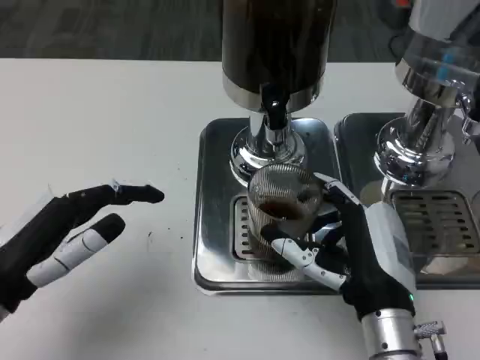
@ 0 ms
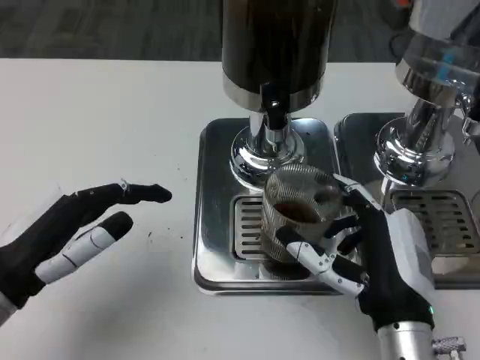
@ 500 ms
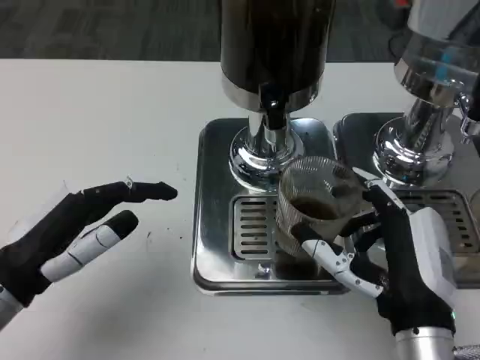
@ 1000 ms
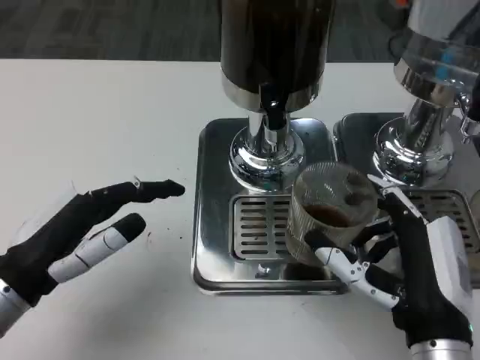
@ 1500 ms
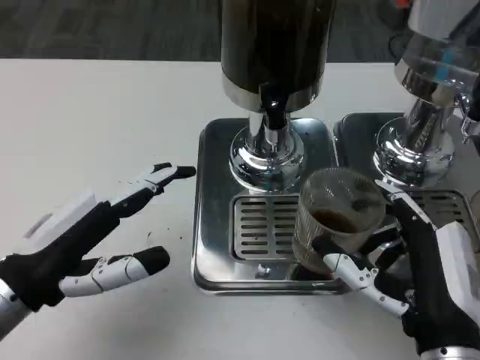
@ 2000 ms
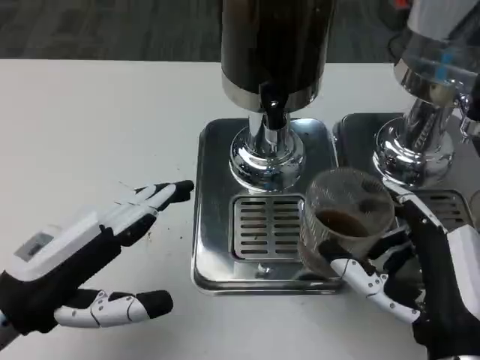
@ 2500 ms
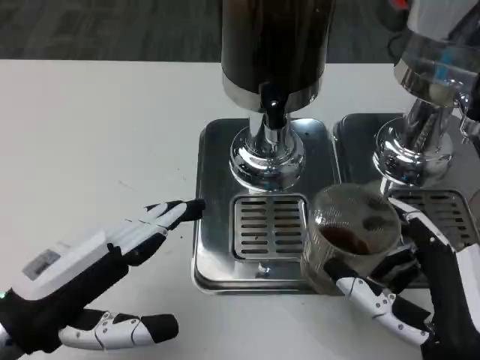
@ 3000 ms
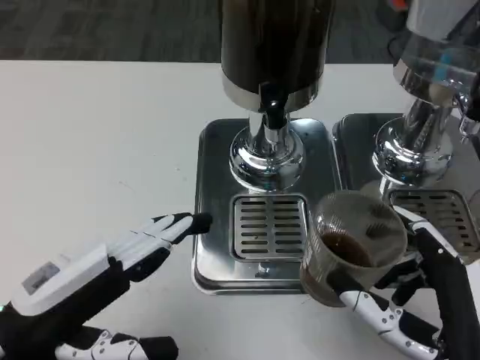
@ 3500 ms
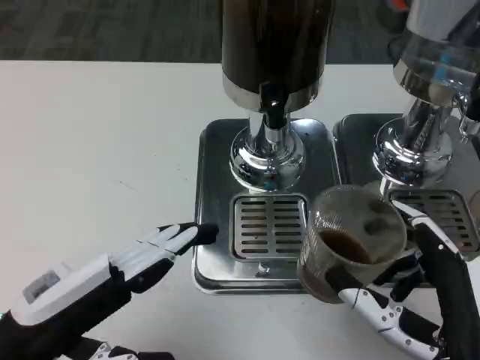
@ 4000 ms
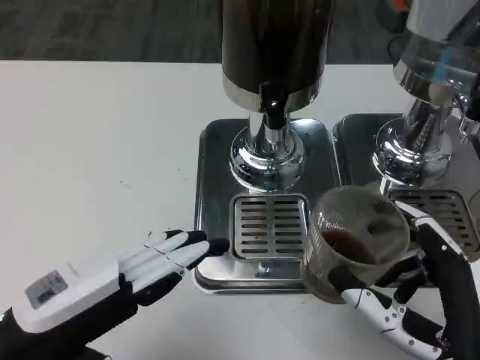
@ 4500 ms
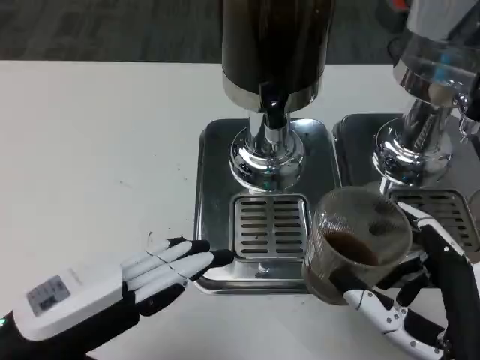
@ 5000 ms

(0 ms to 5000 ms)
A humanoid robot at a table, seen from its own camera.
Task of the whole recording: Grasp the cup under the faucet to collect the drink, then remove the cup.
0 ms - 2500 ms: The right hand moves backward, approximately 5 cm.

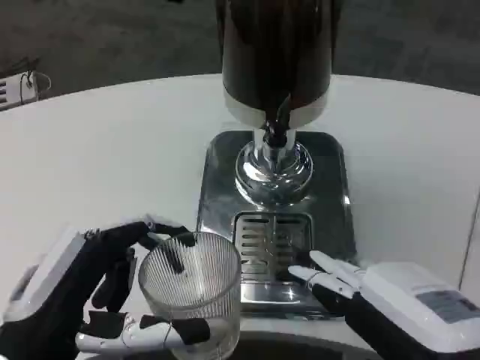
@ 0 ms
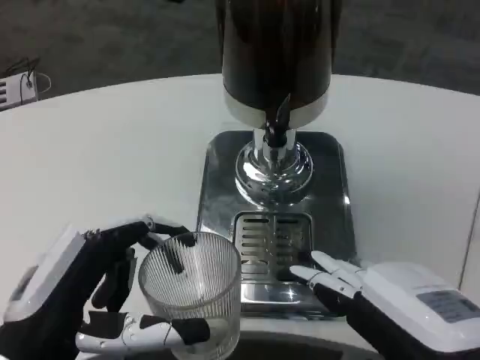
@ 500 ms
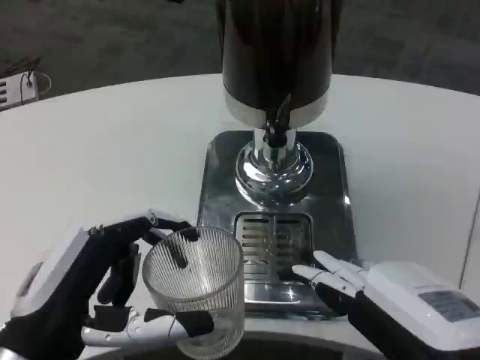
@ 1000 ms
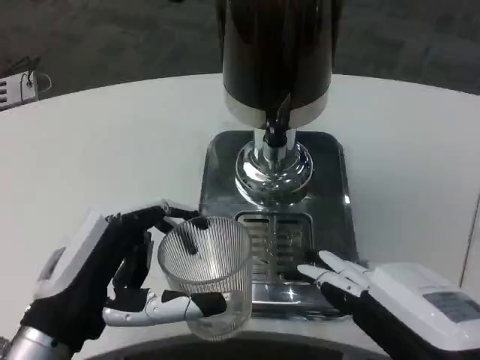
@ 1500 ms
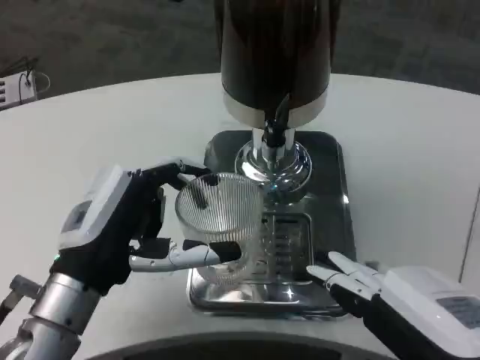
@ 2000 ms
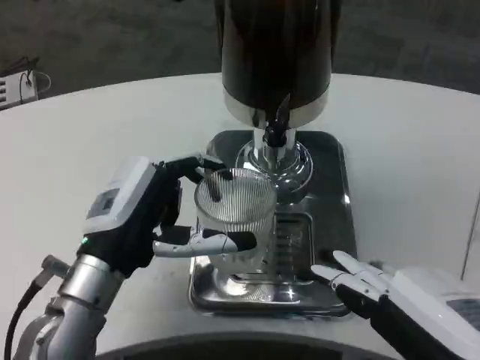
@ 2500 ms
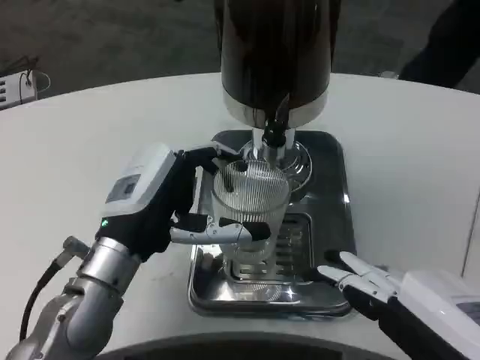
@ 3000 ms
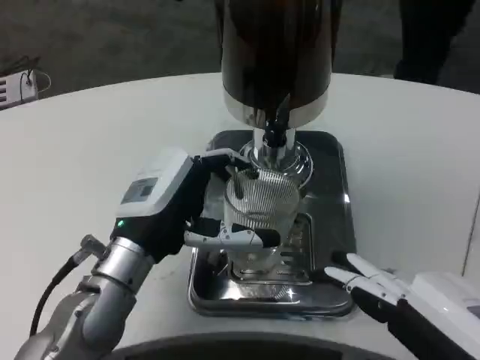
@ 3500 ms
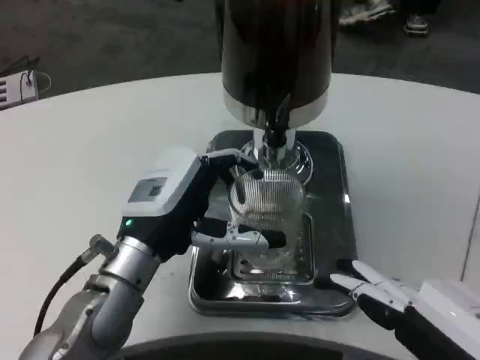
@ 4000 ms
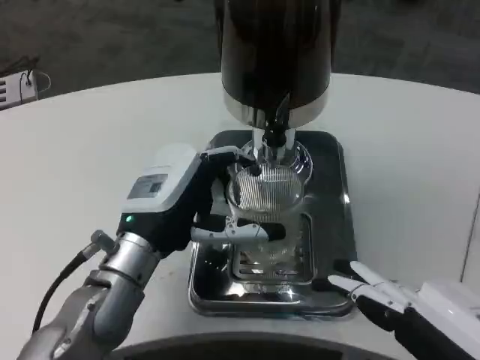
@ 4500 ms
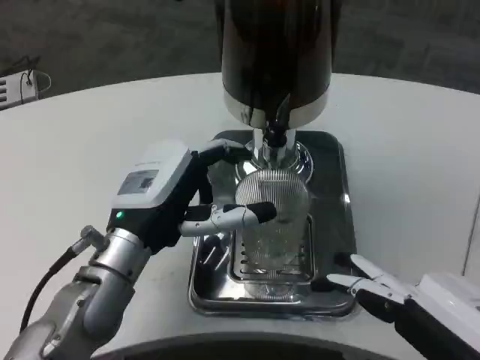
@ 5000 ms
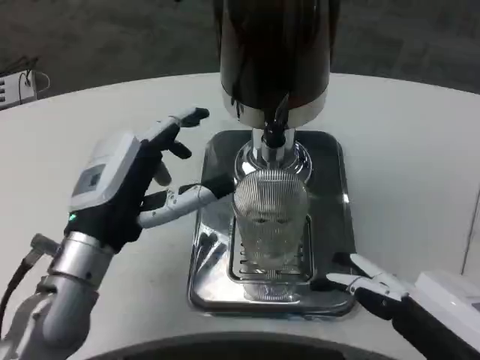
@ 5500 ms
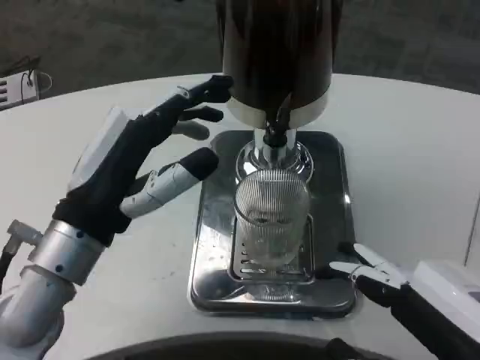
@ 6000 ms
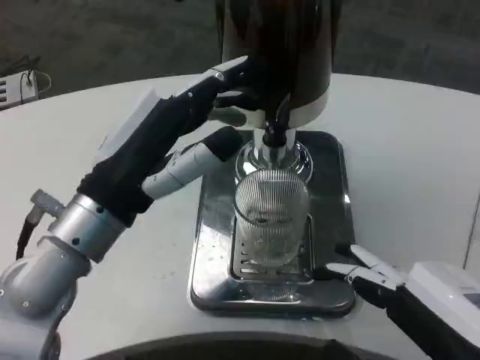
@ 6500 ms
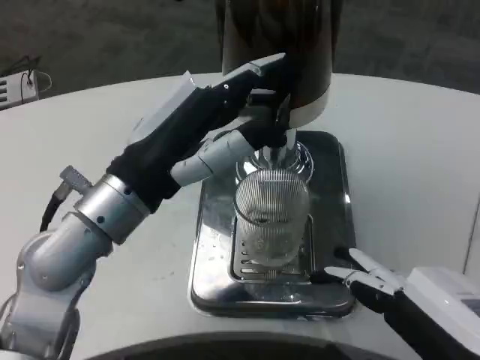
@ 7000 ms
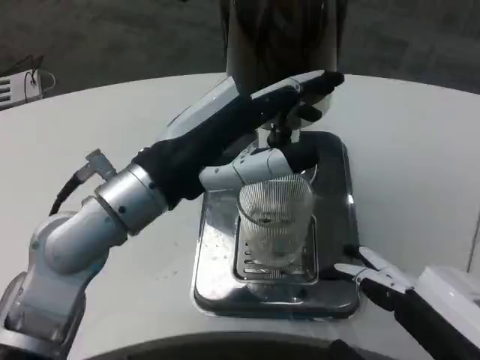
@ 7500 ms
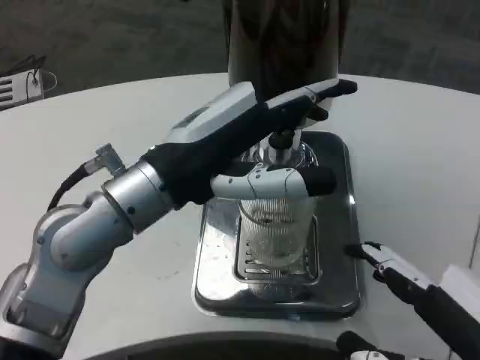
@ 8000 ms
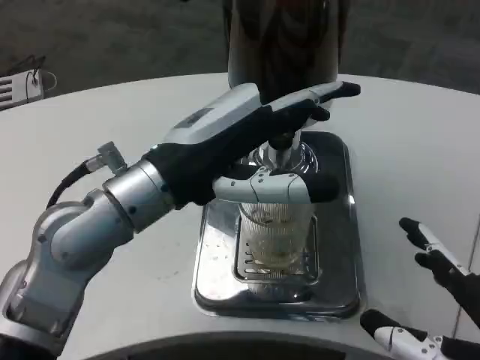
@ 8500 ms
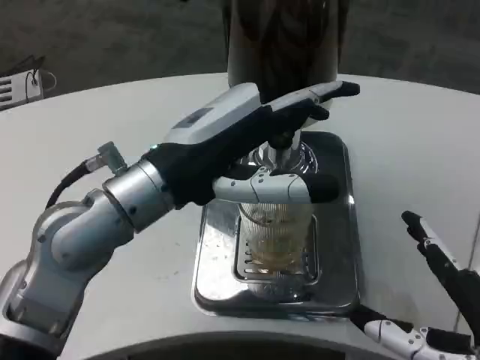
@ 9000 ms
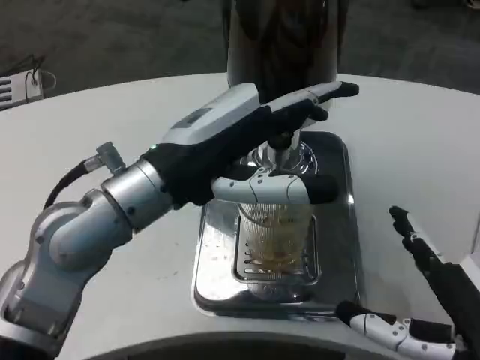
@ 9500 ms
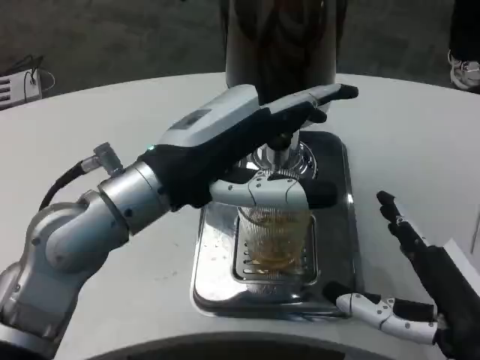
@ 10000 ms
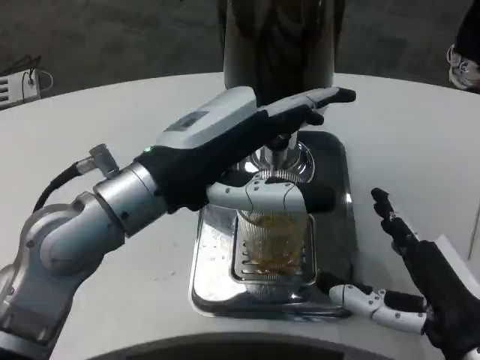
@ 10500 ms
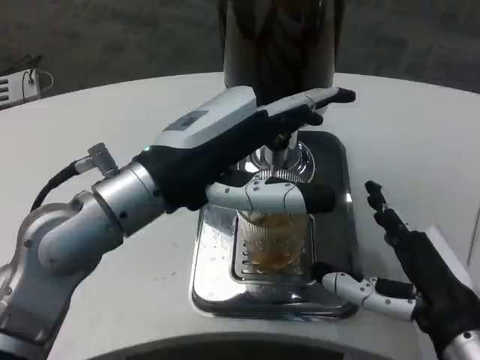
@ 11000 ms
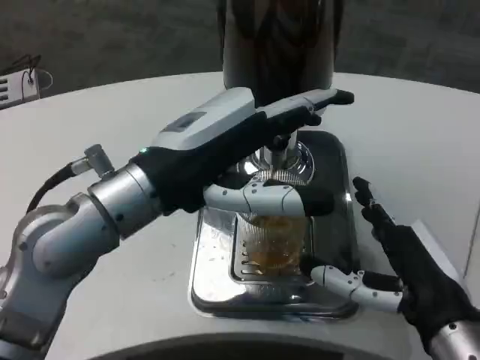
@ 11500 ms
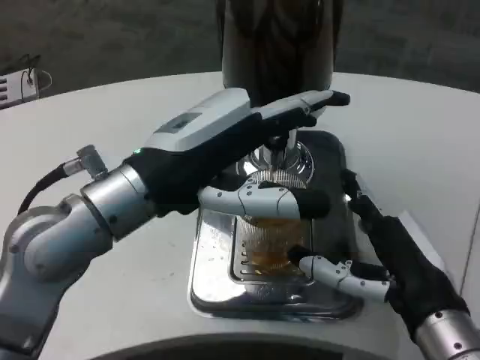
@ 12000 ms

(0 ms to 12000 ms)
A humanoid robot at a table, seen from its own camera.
Task of the whole recording: Grasp the cup under the faucet to collect the drink, then remove the cup.
0 ms - 2000 ms: The left hand moves forward, roughly 10 cm.
2000 ms - 4000 ms: The left hand heads forward, covering some 5 cm.
4000 ms - 6000 ms: The left hand changes place by some 5 cm.
6000 ms - 8000 ms: The left hand shifts about 5 cm upward.
8000 ms - 10000 ms: The right hand is displaced forward by about 5 cm.
10000 ms - 12000 ms: The right hand ends up approximately 5 cm from where it was.

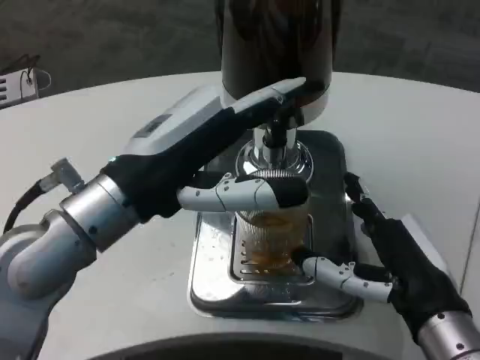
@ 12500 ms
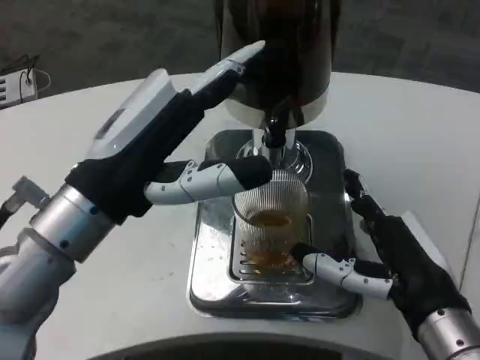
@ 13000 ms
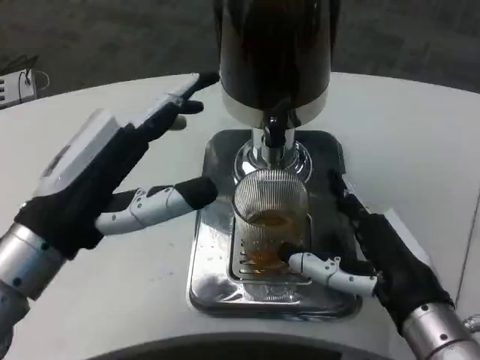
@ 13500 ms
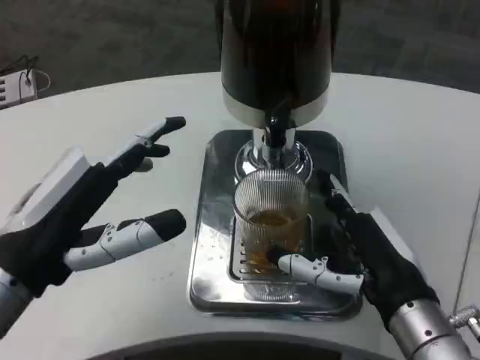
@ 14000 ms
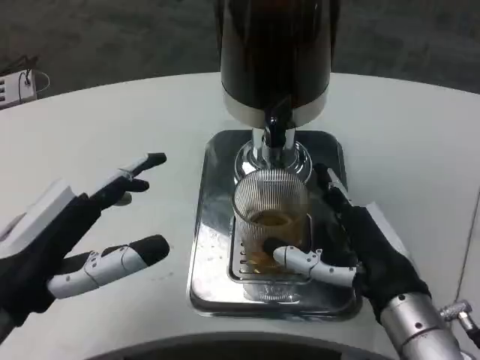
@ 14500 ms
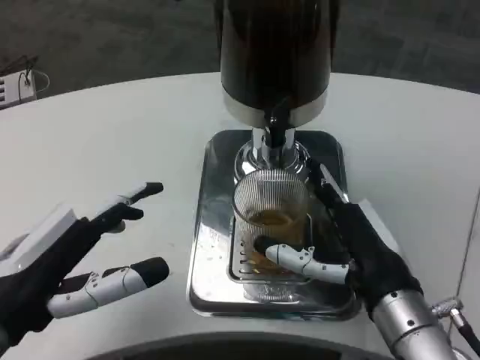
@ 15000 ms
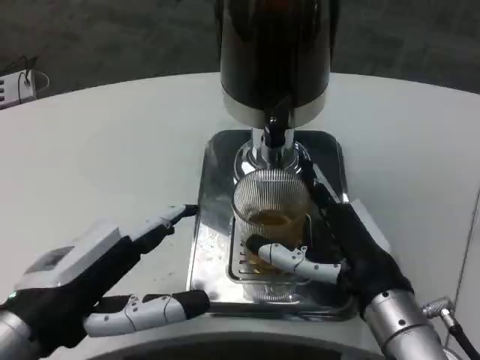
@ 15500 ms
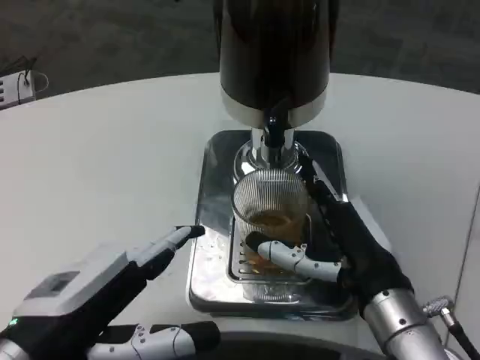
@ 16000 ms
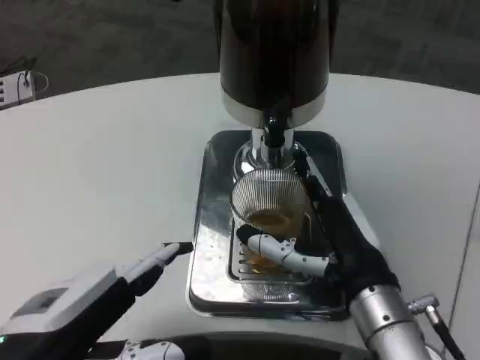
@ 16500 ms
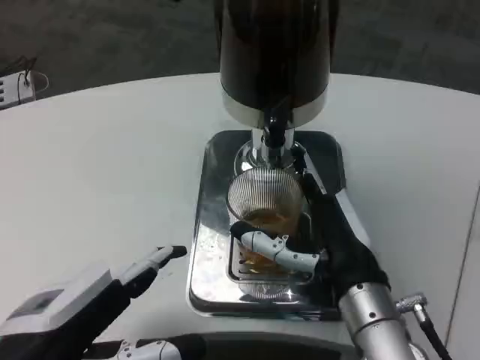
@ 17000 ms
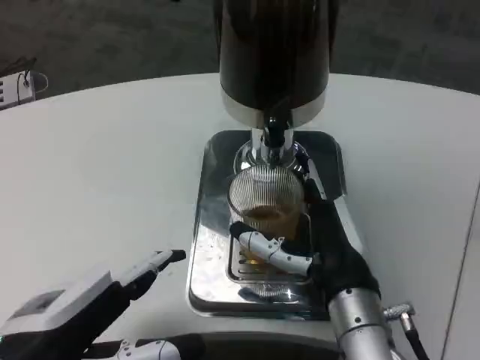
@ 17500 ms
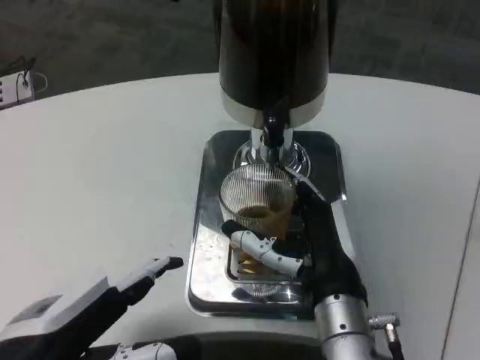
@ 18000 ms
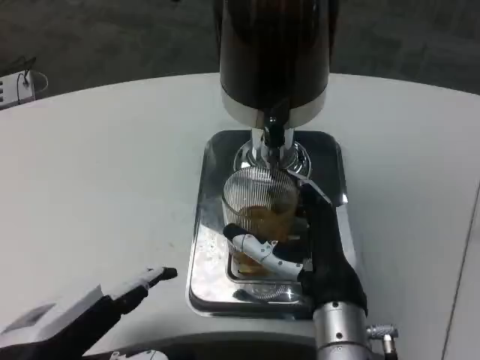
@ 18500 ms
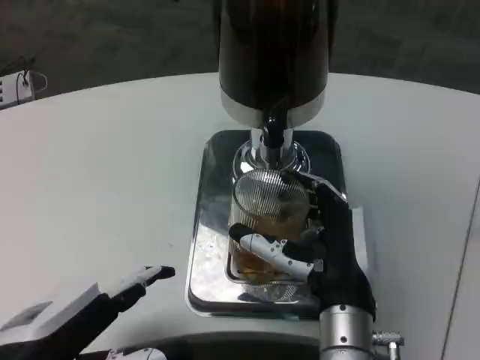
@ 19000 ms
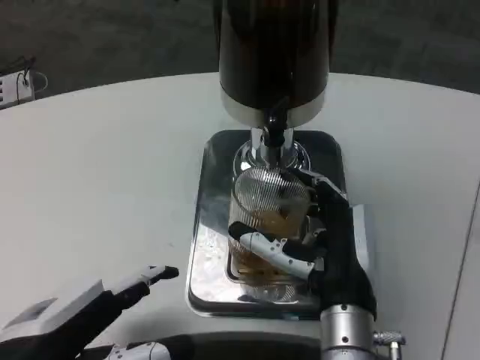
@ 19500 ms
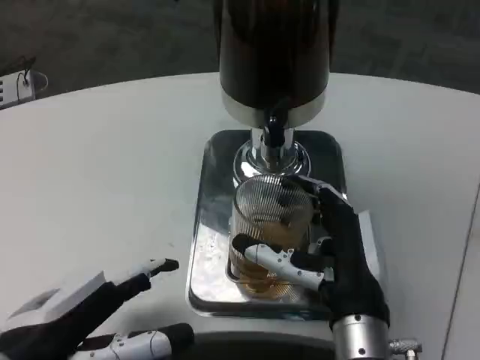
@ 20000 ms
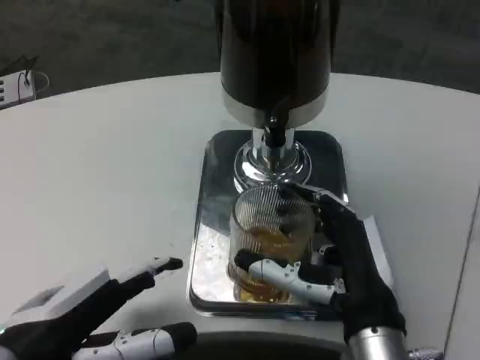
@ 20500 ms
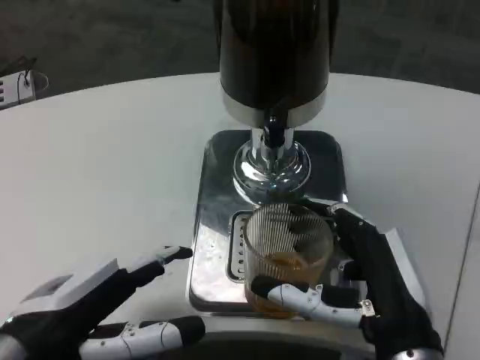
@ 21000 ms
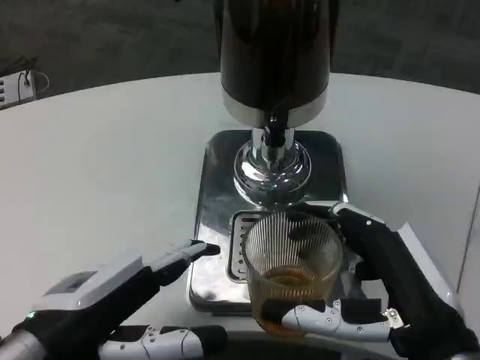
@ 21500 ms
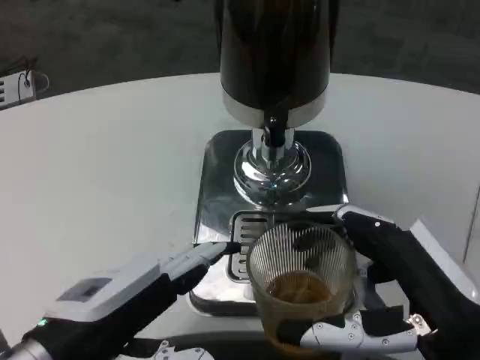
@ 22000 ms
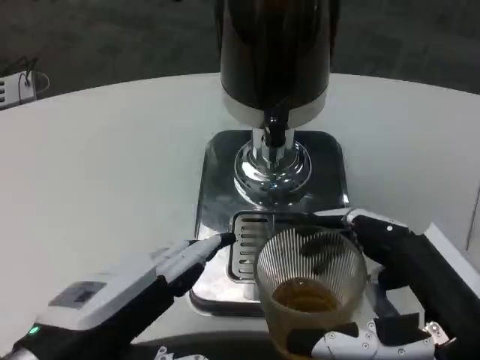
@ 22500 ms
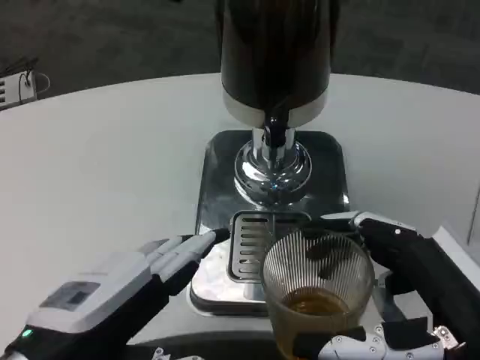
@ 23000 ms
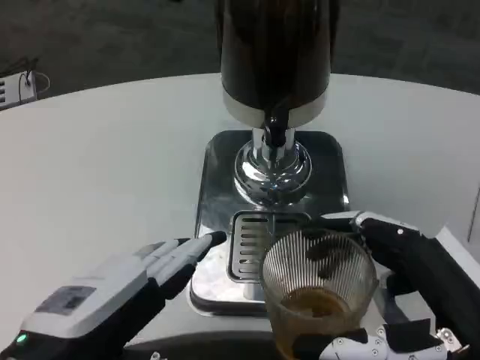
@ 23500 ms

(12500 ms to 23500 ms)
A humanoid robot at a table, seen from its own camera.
Task of the whole recording: Grasp the cup under the faucet to collect the drink, then remove the cup.
12500 ms - 14500 ms: The left hand is displaced to the left, downward and backward by about 10 cm.
16000 ms - 18000 ms: The right hand heads to the left, covering approximately 5 cm.
18000 ms - 20000 ms: There are only small adjustments of the hands.
20000 ms - 21500 ms: The right hand goes approximately 10 cm to the right and backward.
21500 ms - 23500 ms: The right hand shifts by some 5 cm.
